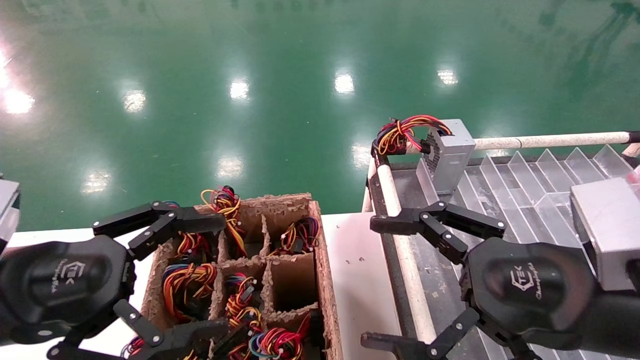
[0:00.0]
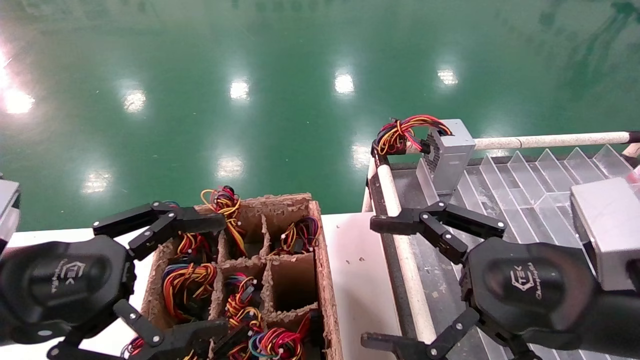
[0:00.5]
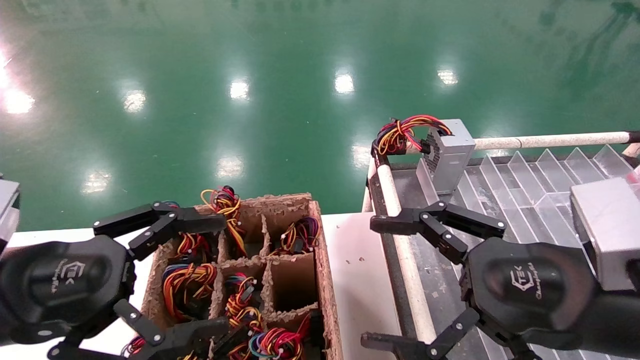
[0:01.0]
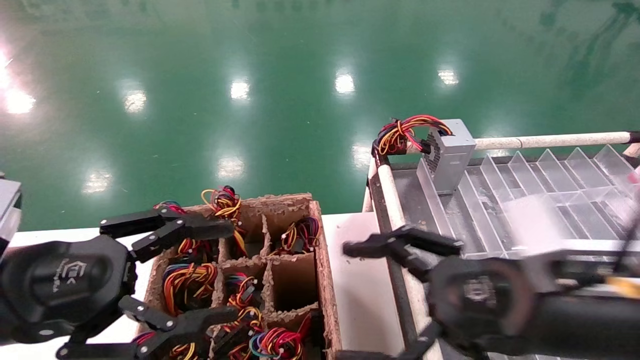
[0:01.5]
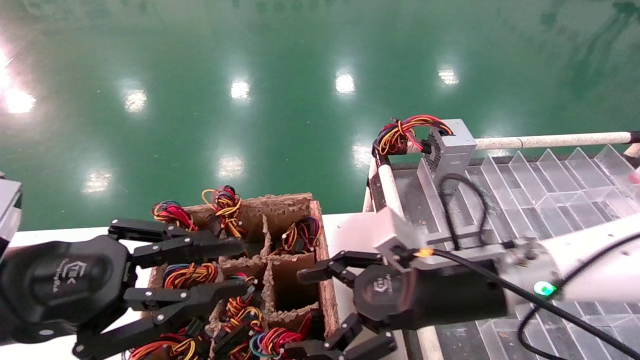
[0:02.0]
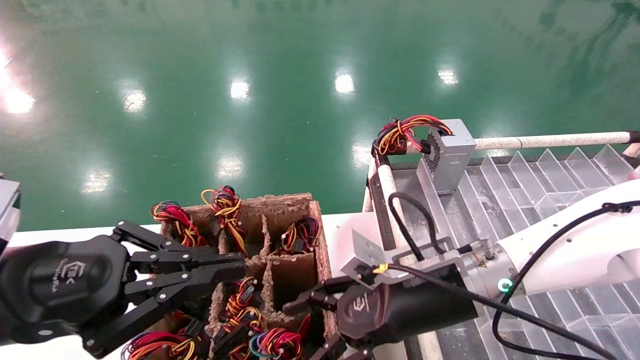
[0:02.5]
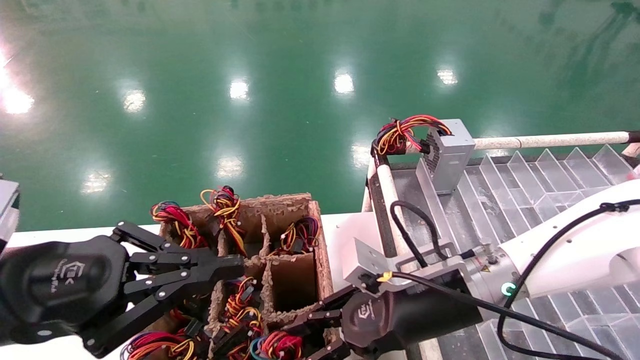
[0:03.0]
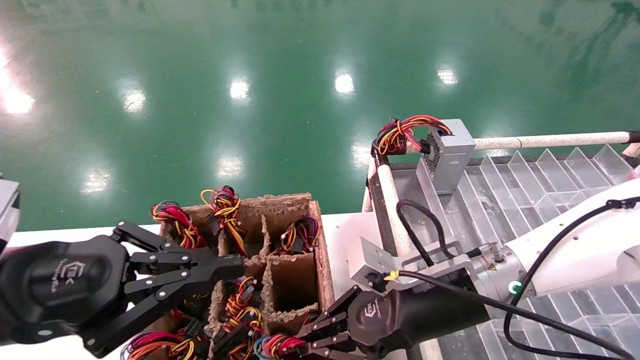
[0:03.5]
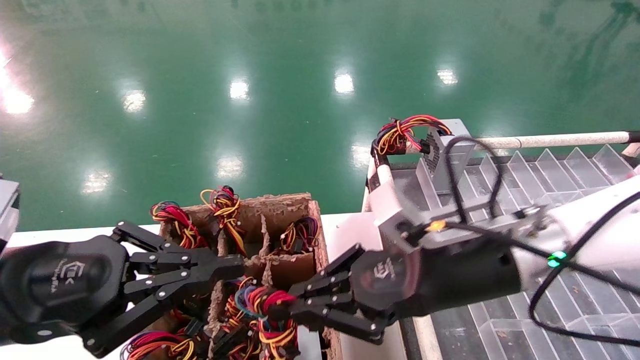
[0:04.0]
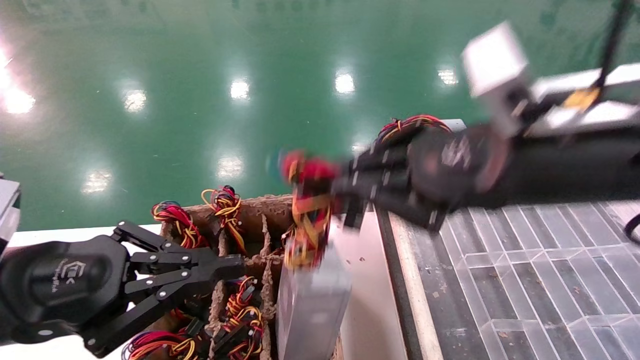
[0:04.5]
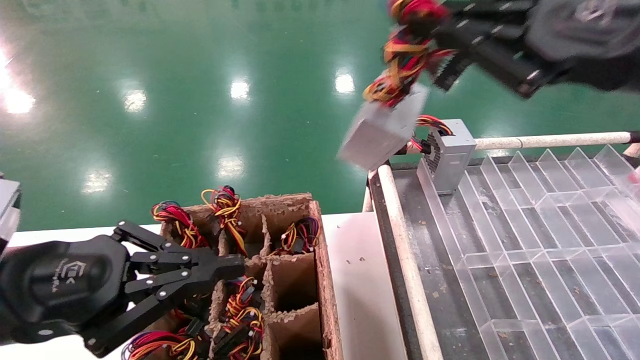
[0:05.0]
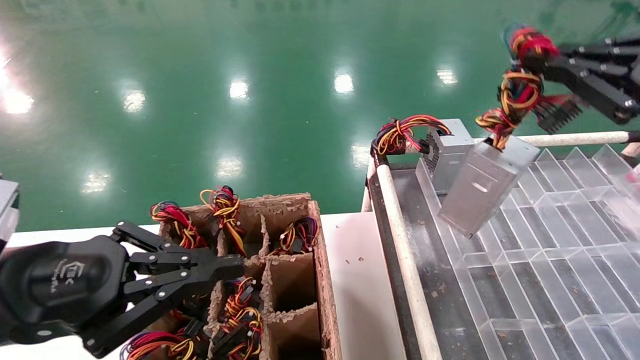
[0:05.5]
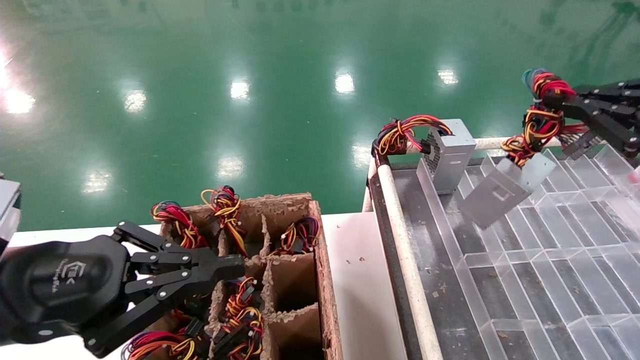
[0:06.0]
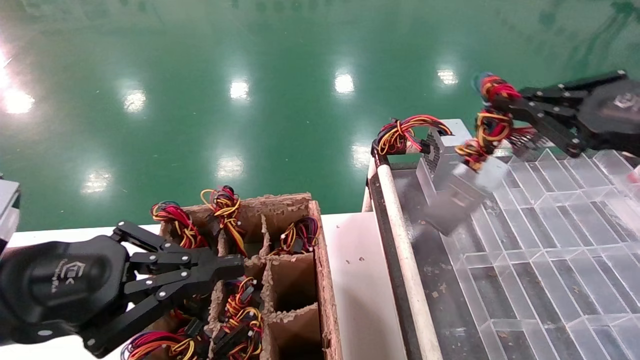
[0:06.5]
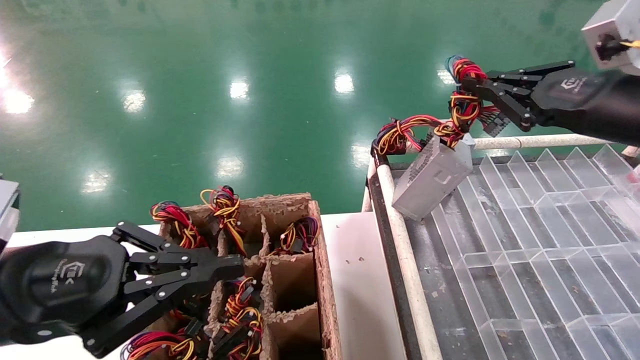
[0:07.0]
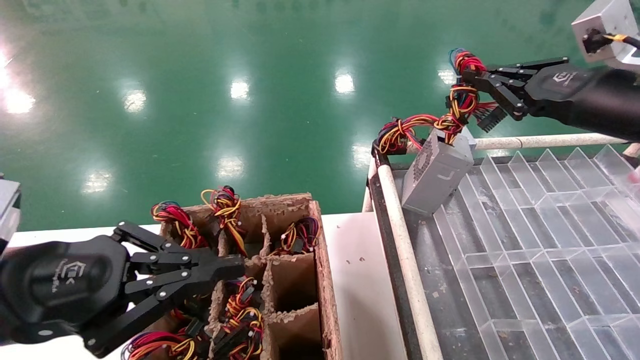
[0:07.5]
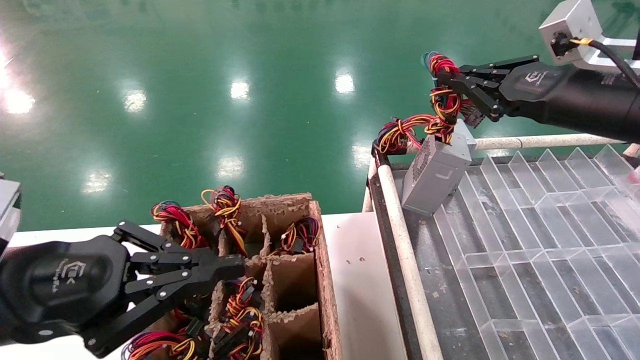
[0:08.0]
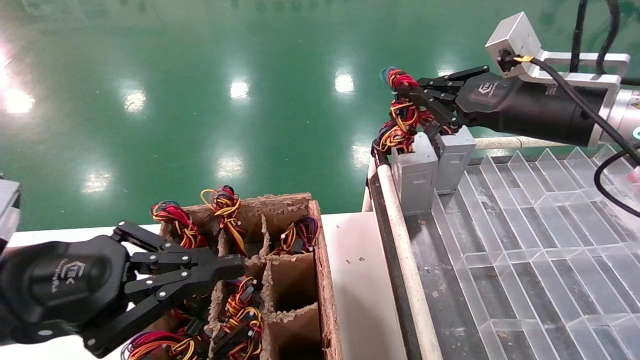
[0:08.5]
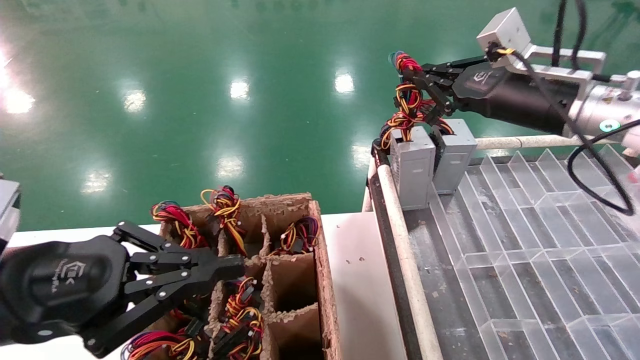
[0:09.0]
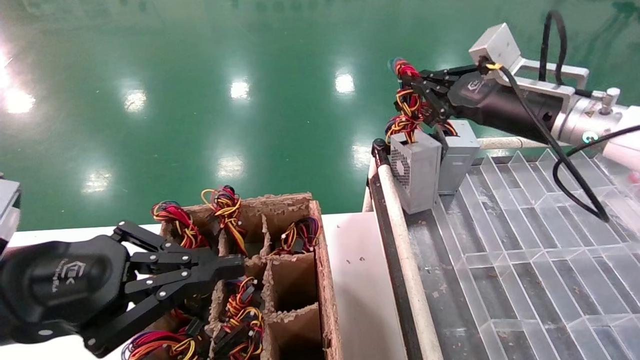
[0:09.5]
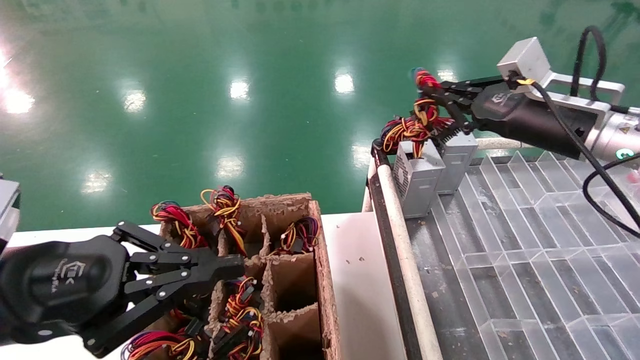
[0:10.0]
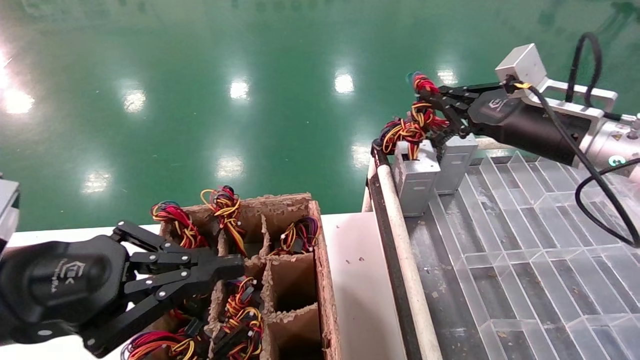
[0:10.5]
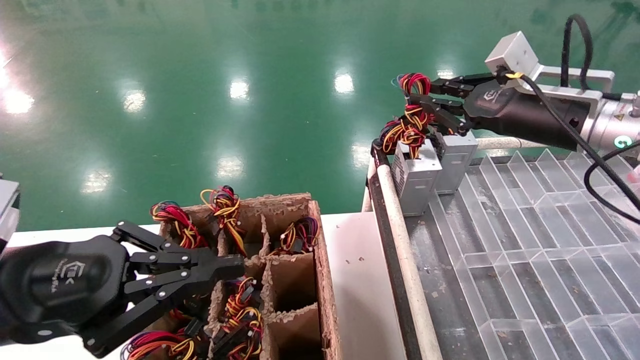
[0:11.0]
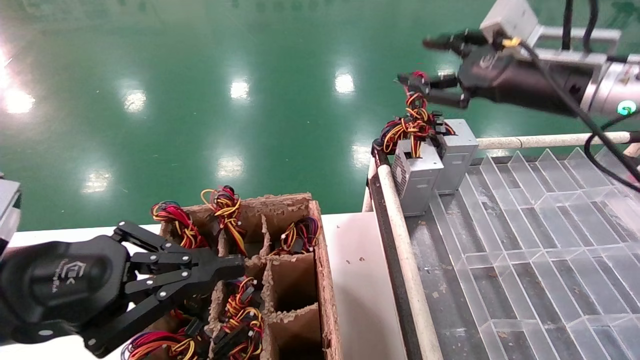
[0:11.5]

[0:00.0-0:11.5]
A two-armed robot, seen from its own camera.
Step, 0:01.5 to 0:03.5: Grab the main unit power supply from the containment box.
Step, 0:04.0 to 0:10.5: Place the main unit power supply in the designated area.
0:00.0 to 0:02.0: The left gripper closes; the right gripper moves forward and to the left, some 15 cm.
0:02.0 to 0:04.0: The right gripper closes, while the left gripper closes up.
0:04.0 to 0:06.0: The right gripper is displaced to the right and upward by approximately 25 cm.
0:06.0 to 0:07.5: The right gripper shifts roughly 10 cm forward.
0:07.5 to 0:09.5: The right gripper heads forward, covering roughly 10 cm.
0:09.5 to 0:11.5: The right gripper opens.

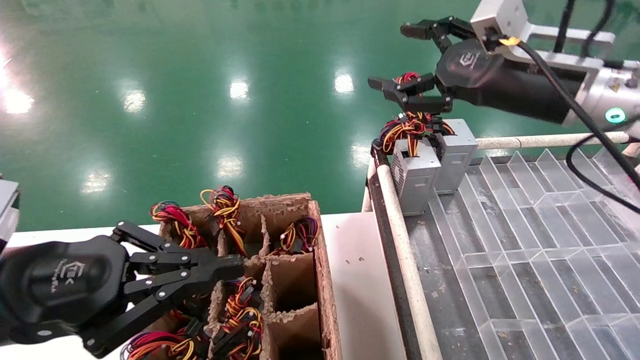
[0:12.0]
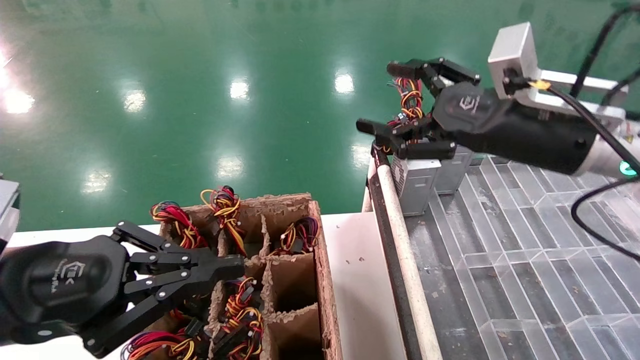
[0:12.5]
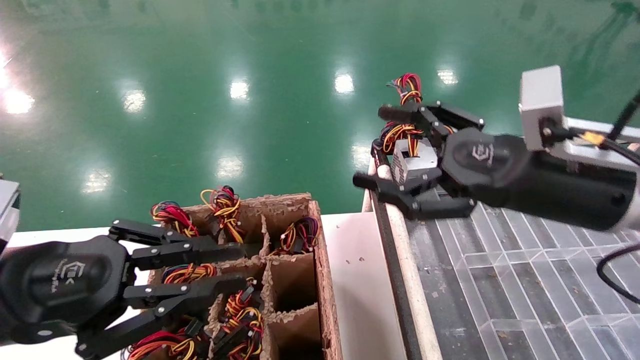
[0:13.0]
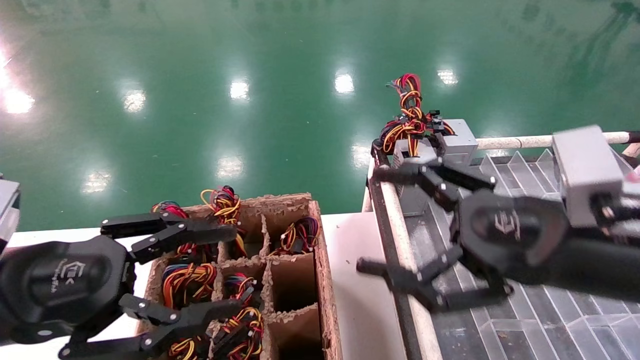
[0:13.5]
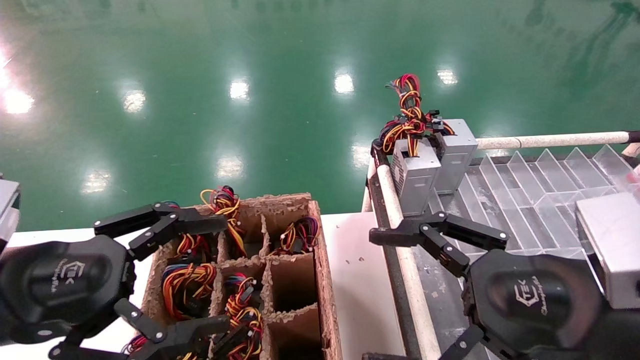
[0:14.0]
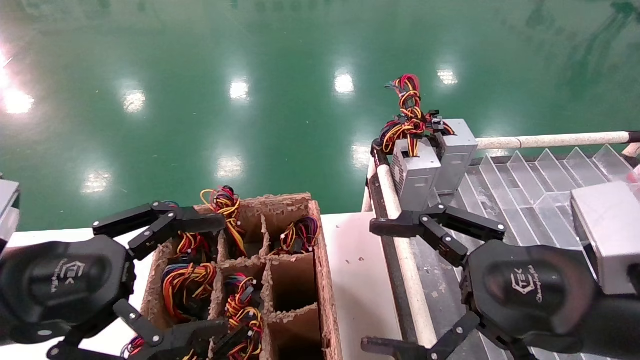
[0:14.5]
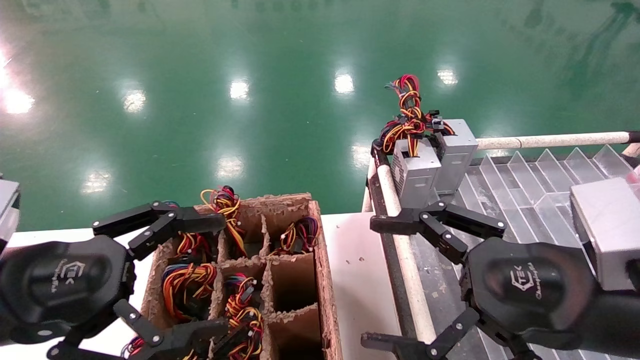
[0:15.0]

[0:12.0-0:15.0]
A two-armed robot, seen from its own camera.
0:12.0 to 0:13.5: The left gripper opens up. The right gripper goes approximately 20 cm backward and downward.
0:13.5 to 0:15.0: The left gripper opens up.
